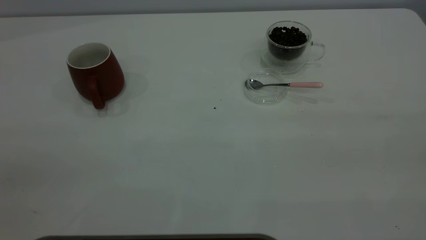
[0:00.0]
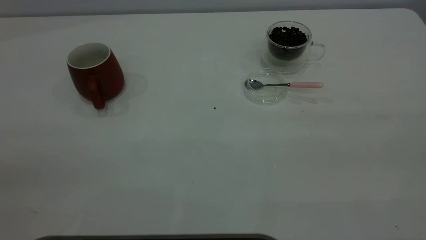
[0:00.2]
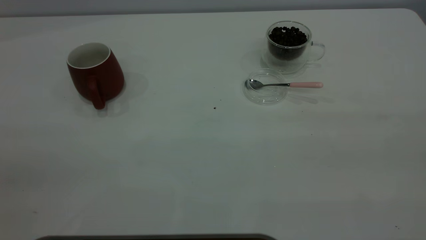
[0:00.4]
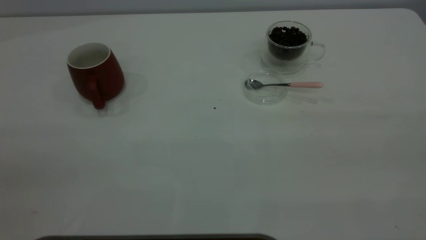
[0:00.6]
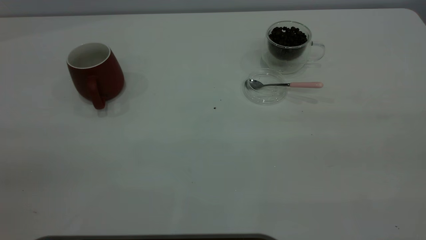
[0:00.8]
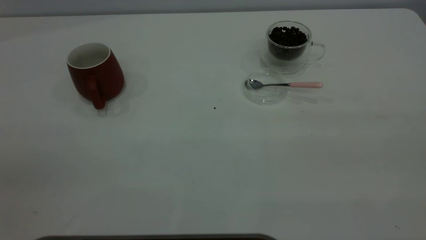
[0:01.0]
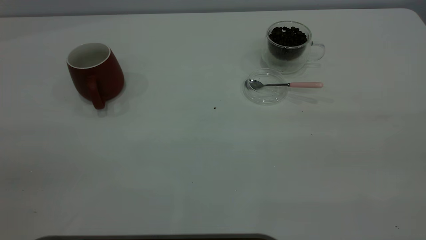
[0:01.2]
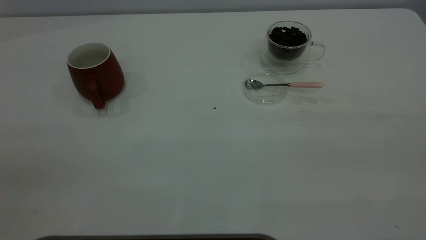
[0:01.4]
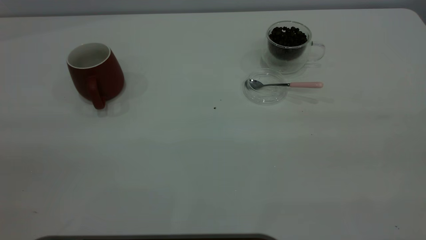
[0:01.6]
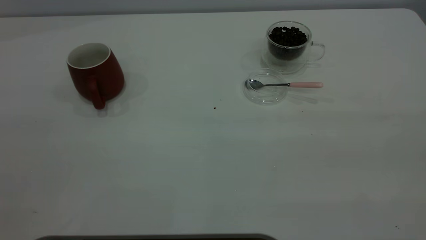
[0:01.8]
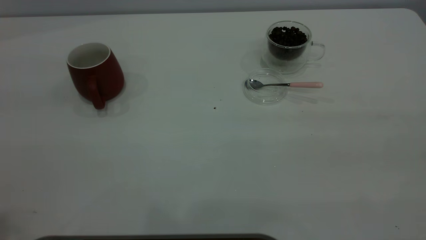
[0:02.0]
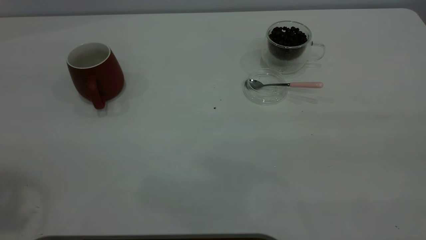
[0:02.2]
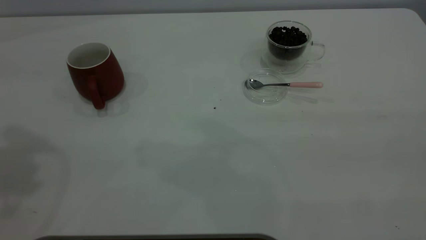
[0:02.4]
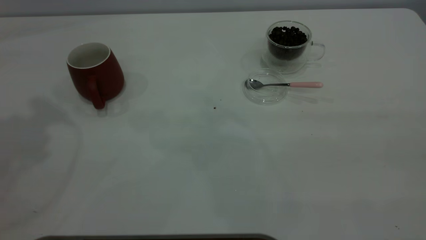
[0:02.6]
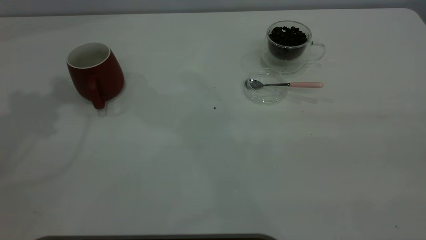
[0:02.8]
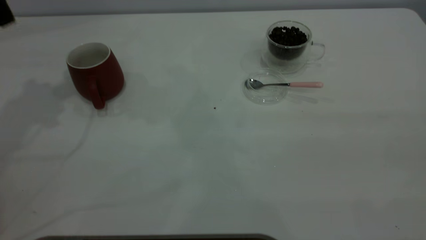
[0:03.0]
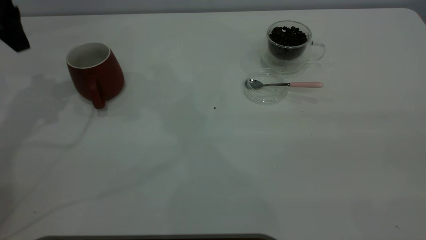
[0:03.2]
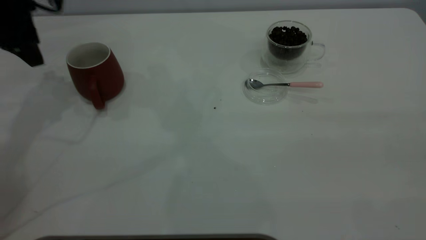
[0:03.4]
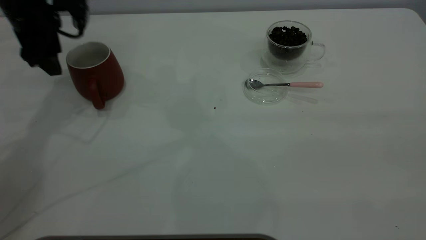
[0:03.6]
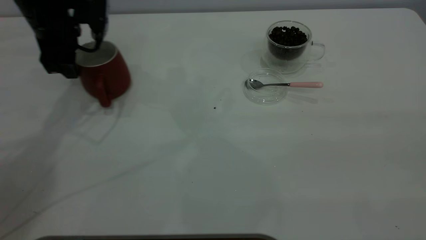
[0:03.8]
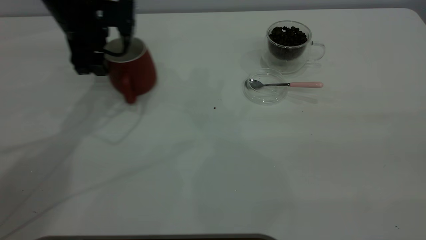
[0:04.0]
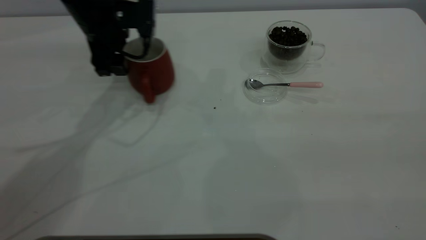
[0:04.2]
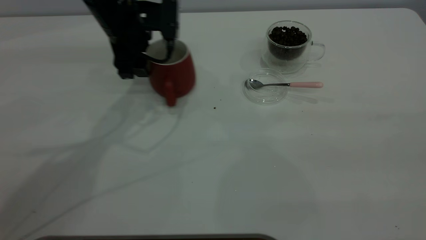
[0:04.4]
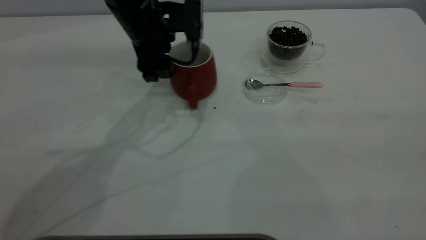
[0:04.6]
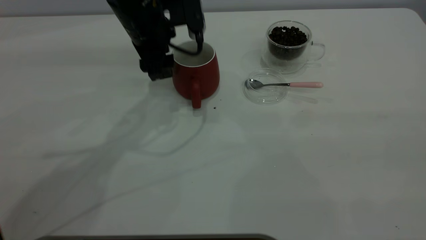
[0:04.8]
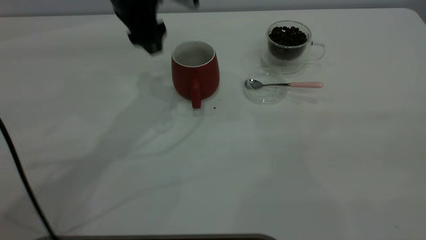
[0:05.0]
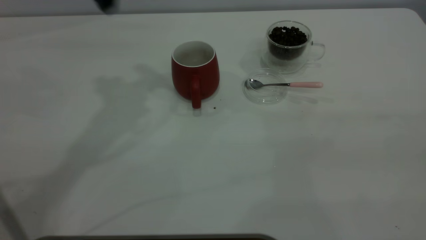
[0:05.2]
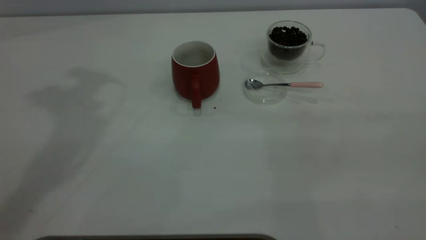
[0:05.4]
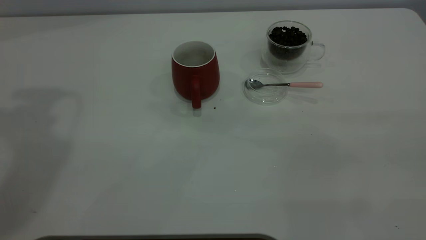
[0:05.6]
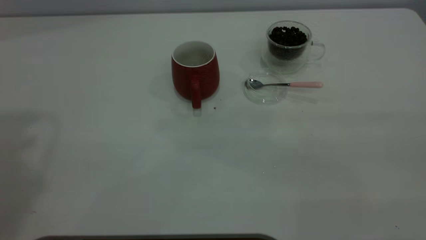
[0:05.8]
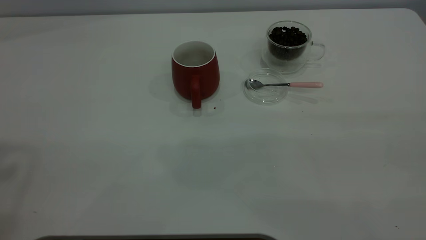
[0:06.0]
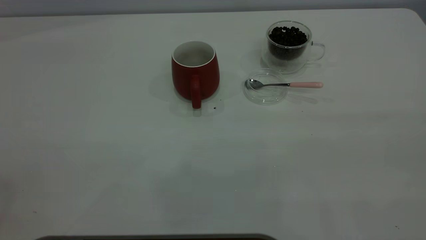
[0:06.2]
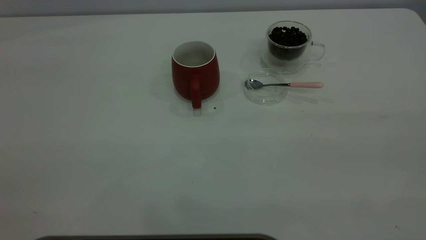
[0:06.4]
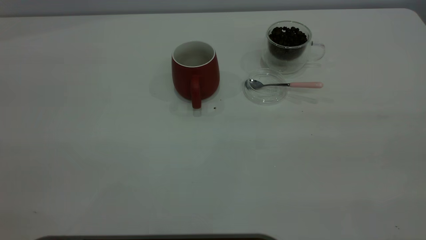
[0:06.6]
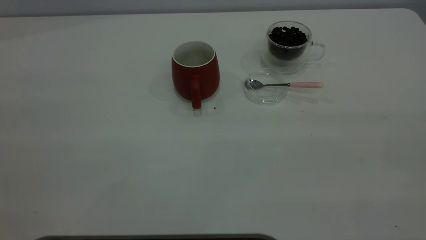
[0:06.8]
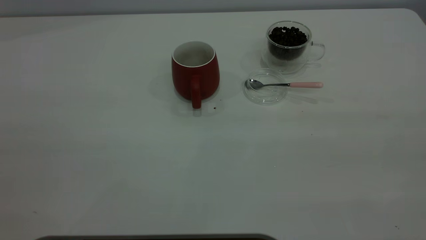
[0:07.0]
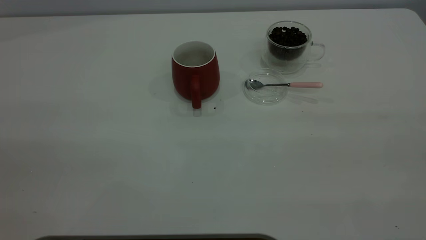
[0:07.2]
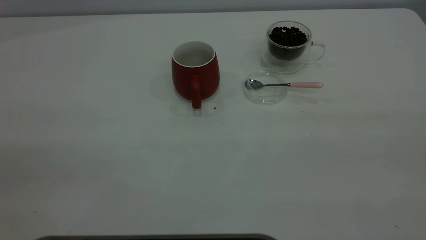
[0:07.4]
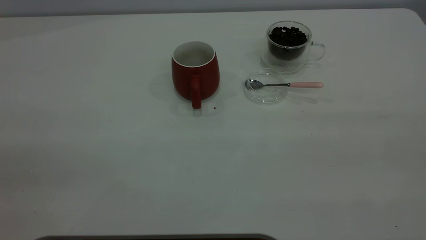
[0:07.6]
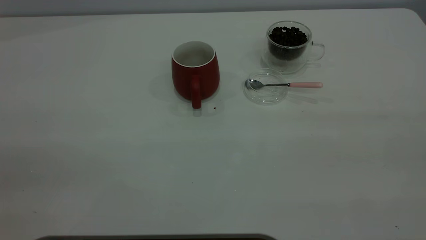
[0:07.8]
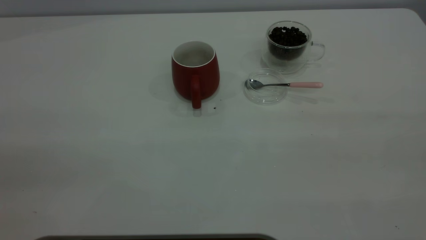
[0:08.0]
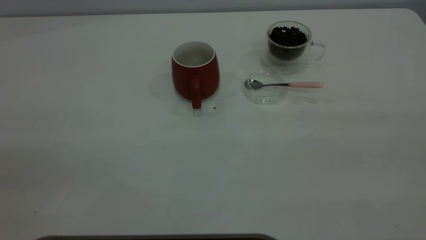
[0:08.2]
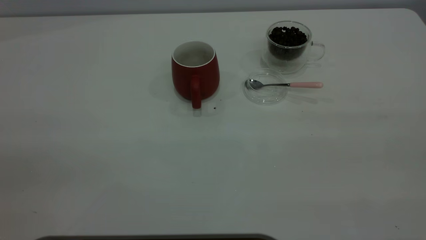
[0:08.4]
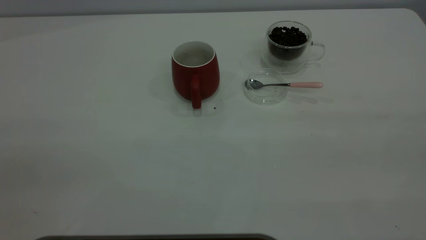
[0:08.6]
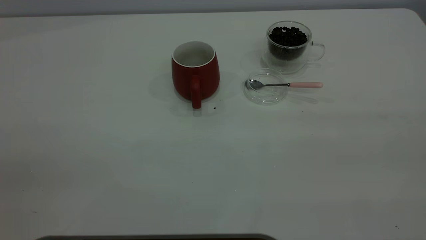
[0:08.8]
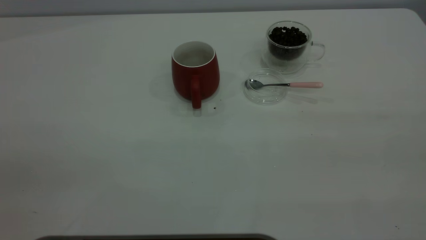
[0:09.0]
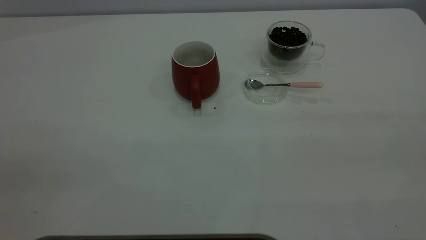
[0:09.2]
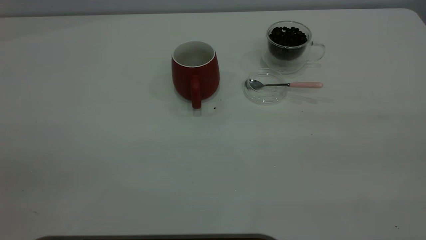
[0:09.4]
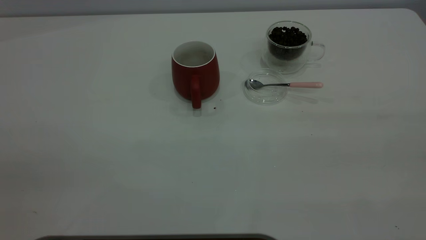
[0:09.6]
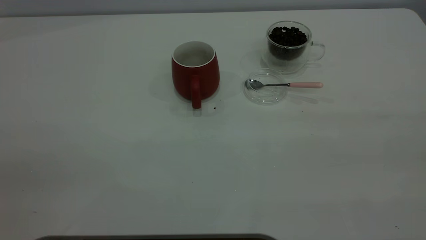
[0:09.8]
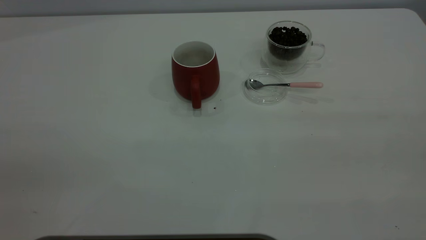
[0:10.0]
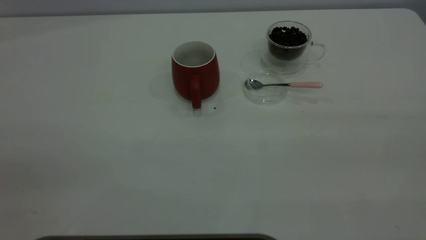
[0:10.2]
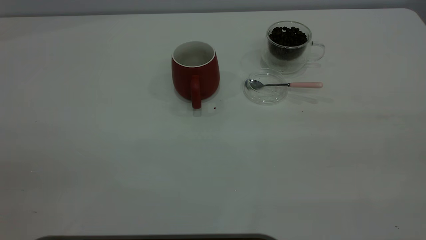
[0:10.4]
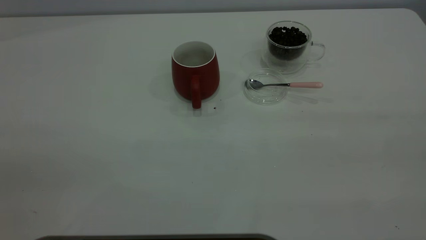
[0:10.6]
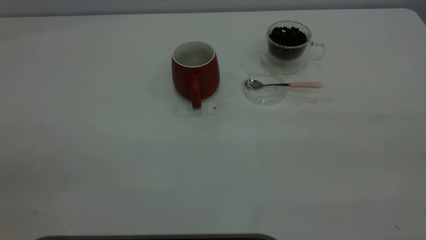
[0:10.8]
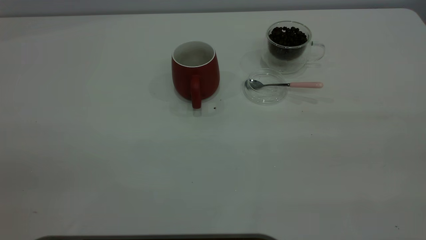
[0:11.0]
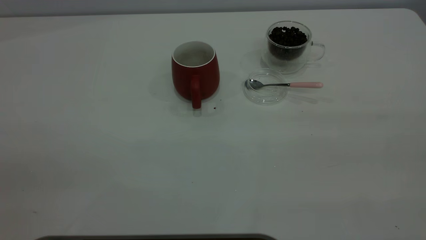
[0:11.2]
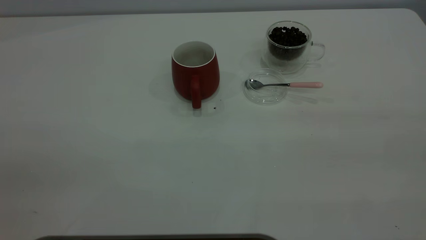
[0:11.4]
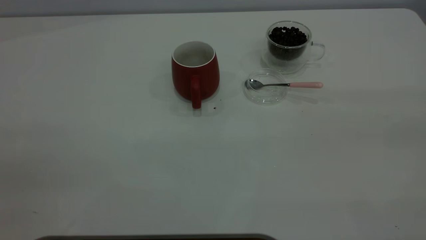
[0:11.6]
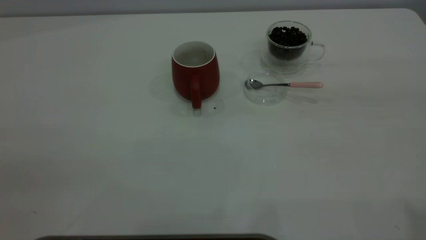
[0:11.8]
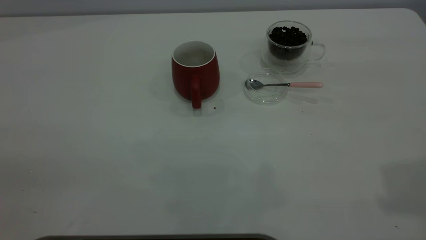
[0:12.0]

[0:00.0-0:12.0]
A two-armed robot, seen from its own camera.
Task of the whole recording: the left gripper place the red cup in the center of the table, the right gripper take the pink spoon from the cup lid and scoop out the coffee beans from the coffee cup and put them into the red cup, the right gripper put the spoon back into the cup lid.
Step, 0:00.0 to 0:04.8: Move the cup to the center of view.
0:03.0 to 0:04.4: The left gripper is displaced to the right and downward by some 20 cm.
0:04.4 to 0:06.0: The left gripper heads upward, backward and to the left, covering approximately 50 cm.
0:09.0 to 0:10.4: Neither gripper changes place.

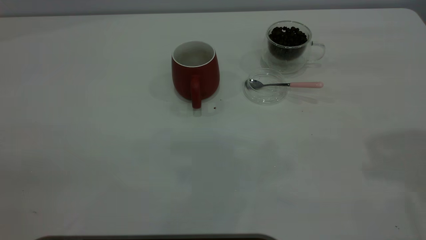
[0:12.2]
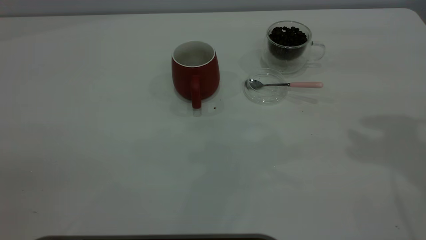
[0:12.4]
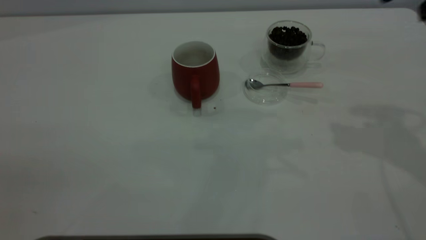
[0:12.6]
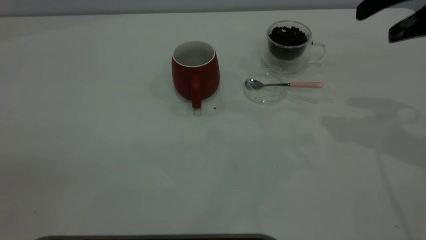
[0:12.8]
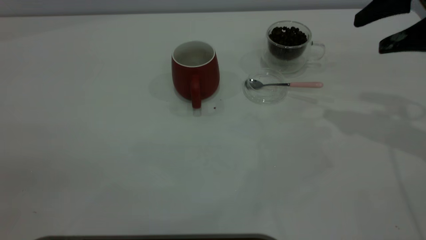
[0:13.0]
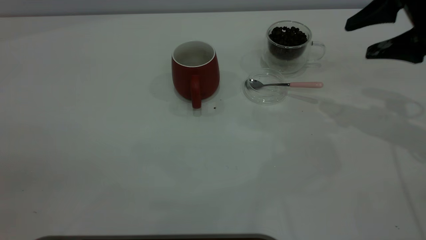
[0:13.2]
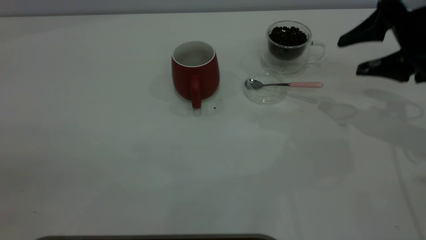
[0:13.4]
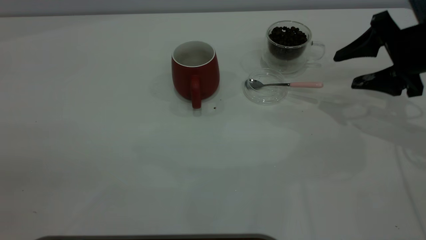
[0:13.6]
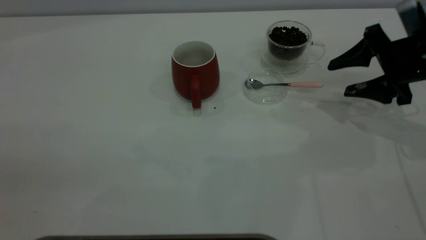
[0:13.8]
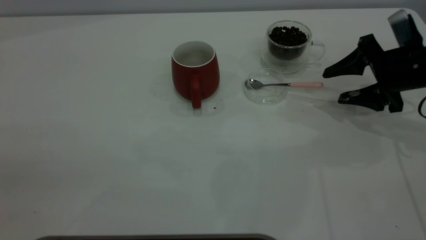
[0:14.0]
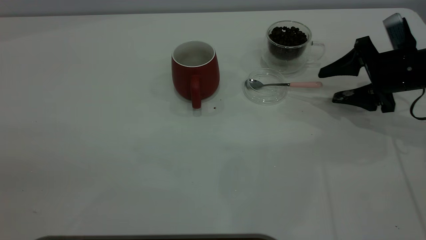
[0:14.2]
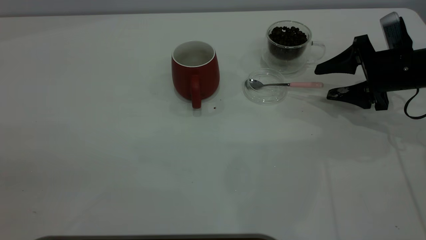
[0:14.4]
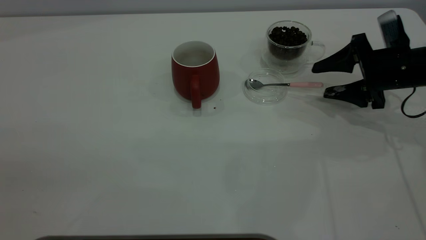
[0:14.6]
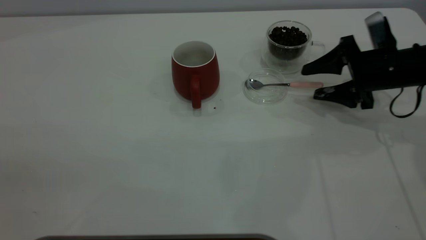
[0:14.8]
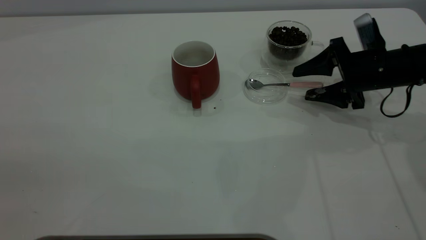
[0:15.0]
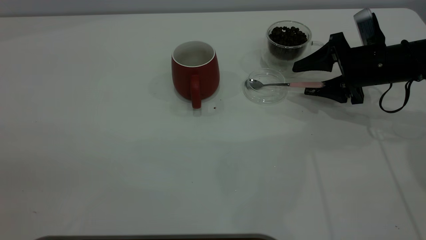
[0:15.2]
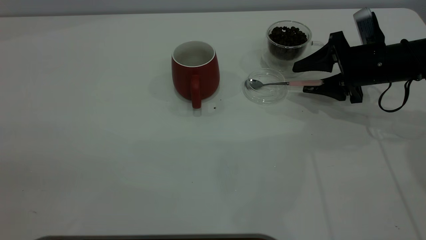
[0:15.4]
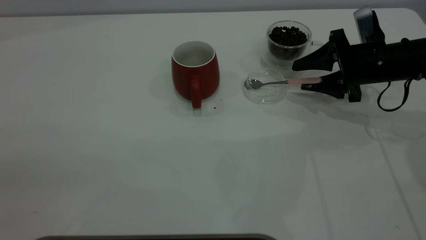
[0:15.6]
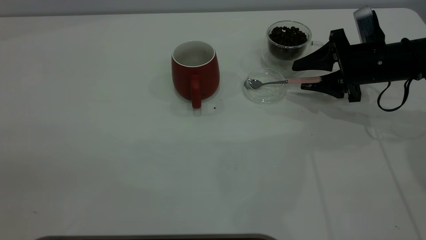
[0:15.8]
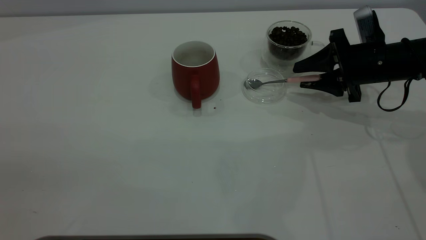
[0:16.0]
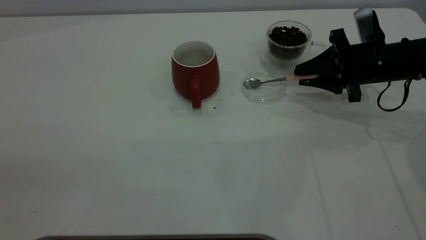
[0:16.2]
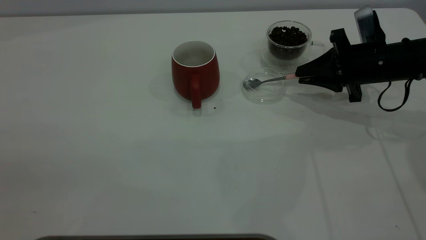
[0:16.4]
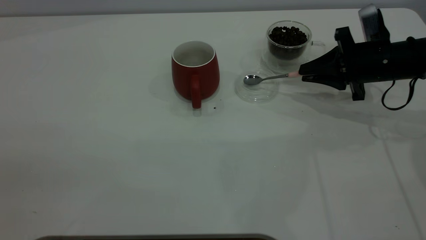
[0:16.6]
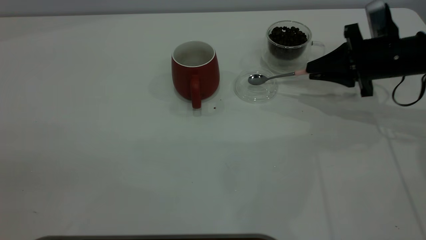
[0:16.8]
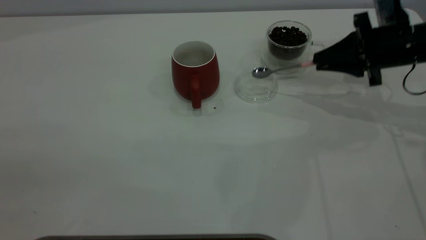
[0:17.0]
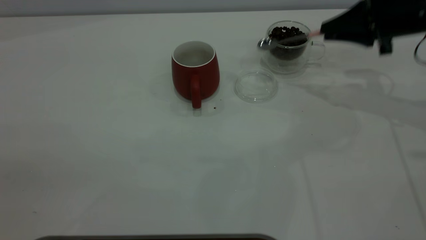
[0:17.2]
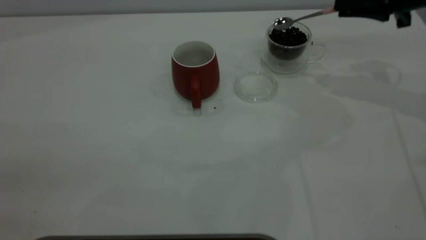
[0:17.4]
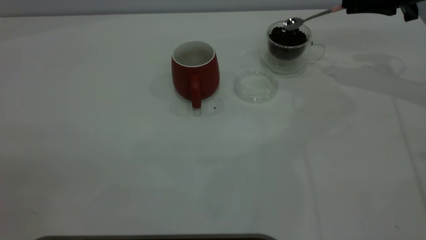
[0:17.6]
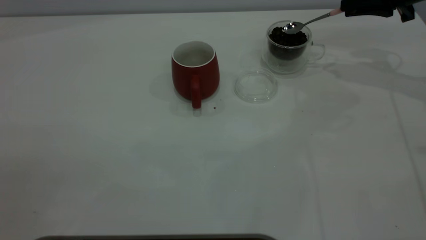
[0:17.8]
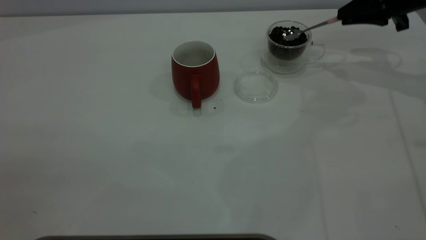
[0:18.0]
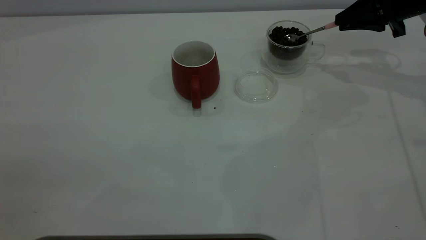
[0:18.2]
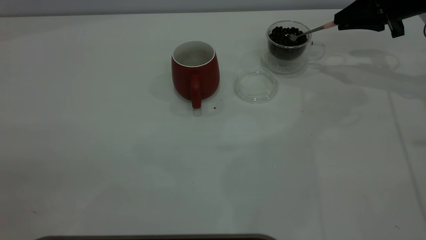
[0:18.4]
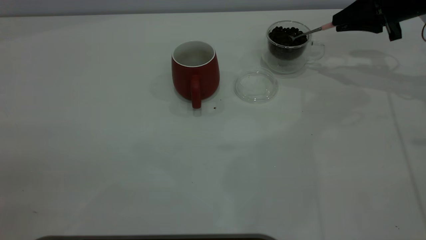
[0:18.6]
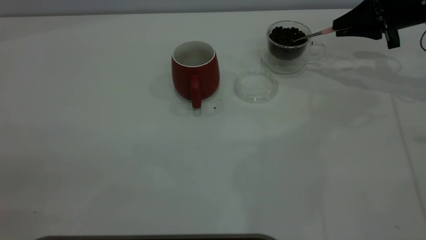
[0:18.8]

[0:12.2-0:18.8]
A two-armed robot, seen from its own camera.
Task of the whole recording: the left gripper place the red cup in the center of the table, the right gripper take the pink spoon from the cup lid and scoop out the coffee beans from the coffee cup and put them into the red cup, the right gripper put the spoon back into the cup lid.
Step, 0:12.2 to 0:16.8: Pick up the spoon.
0:12.2 to 0:13.8: The right gripper shifts about 30 cm downward and forward.
0:13.8 to 0:15.4: The right gripper ends up about 5 cm from where it was.
0:15.4 to 0:17.2: The right gripper moves upward, approximately 10 cm, and closes up.
0:17.2 to 0:18.8: The right gripper shifts some 5 cm forward.
